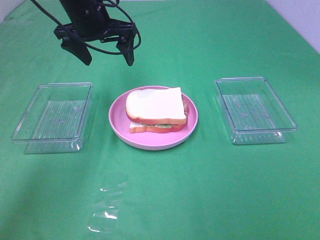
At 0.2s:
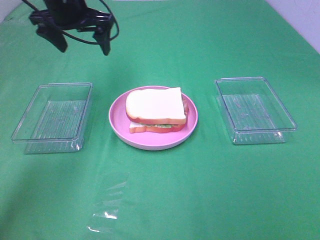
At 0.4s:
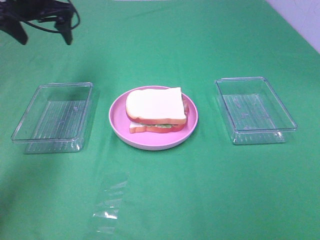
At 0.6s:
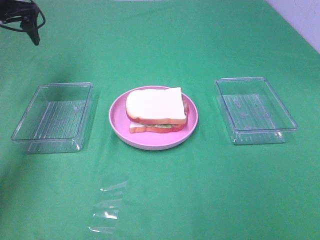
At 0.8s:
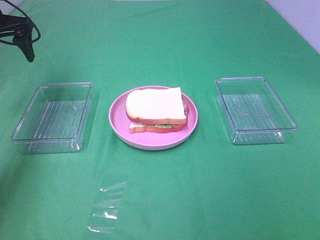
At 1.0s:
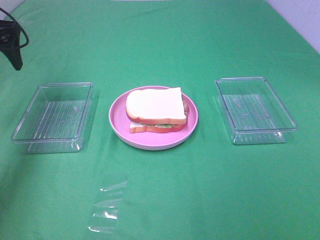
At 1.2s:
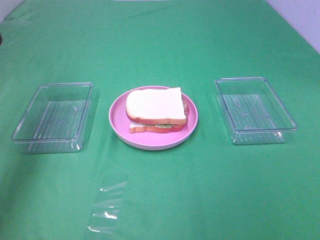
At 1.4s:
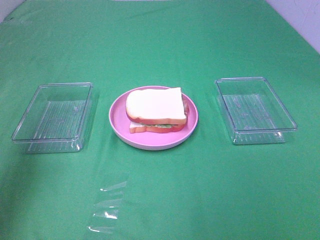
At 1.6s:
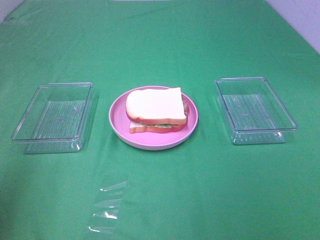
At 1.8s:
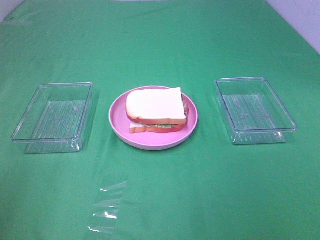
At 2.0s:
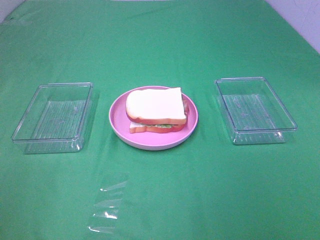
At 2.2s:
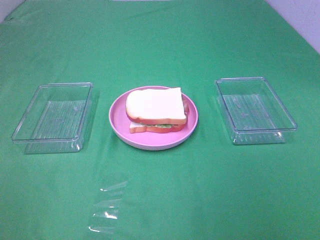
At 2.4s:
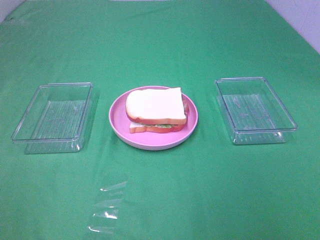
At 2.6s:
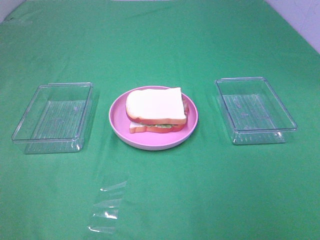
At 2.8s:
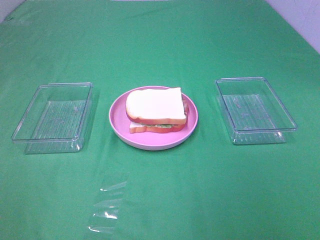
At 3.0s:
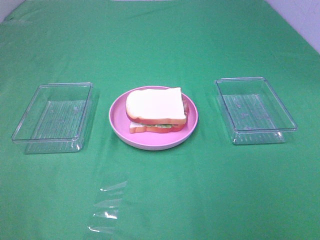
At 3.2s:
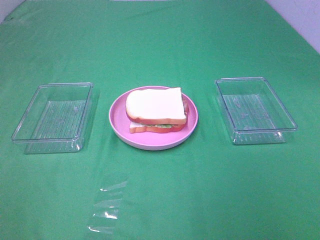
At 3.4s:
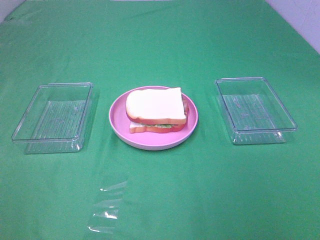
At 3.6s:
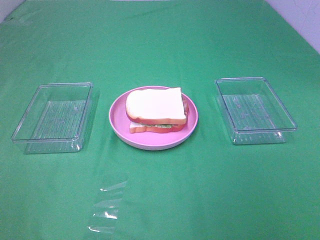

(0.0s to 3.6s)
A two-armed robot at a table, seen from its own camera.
Task of the whole recording: Make sandwiches.
0.0s - 1.8s: The left gripper goes about 40 cm backward and to the left.

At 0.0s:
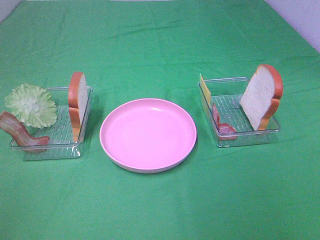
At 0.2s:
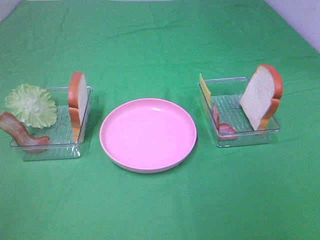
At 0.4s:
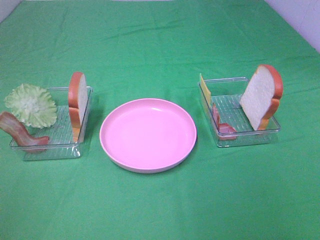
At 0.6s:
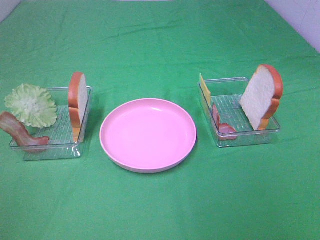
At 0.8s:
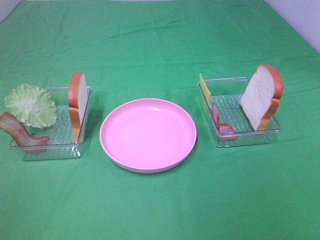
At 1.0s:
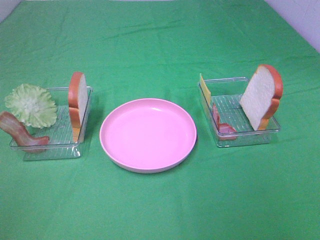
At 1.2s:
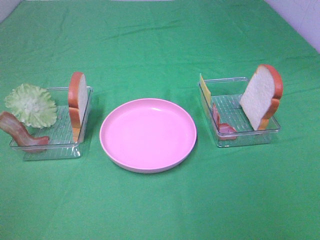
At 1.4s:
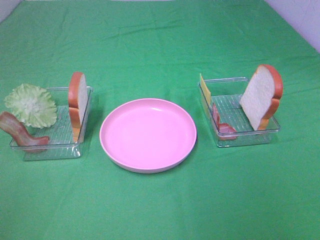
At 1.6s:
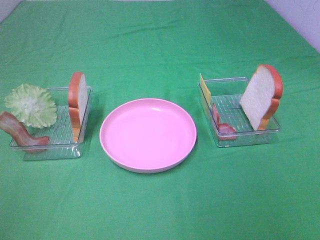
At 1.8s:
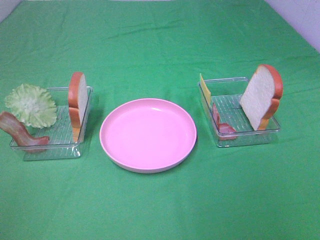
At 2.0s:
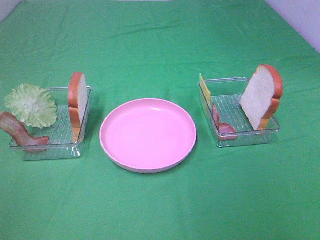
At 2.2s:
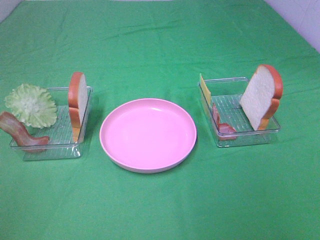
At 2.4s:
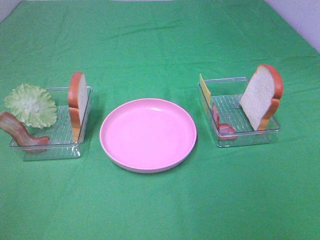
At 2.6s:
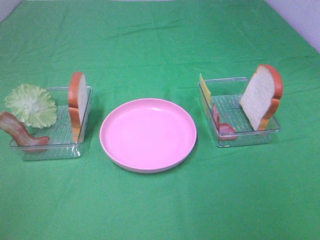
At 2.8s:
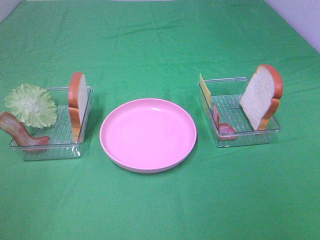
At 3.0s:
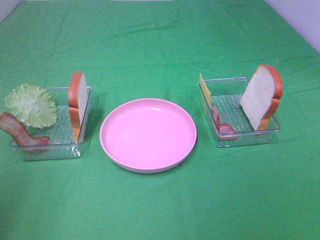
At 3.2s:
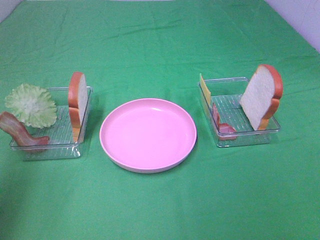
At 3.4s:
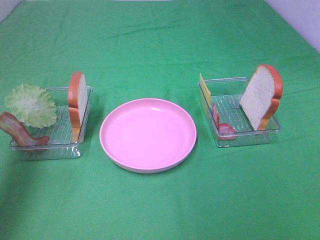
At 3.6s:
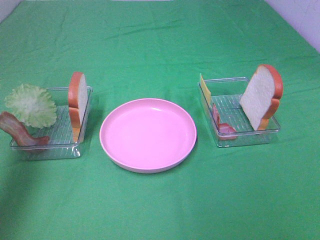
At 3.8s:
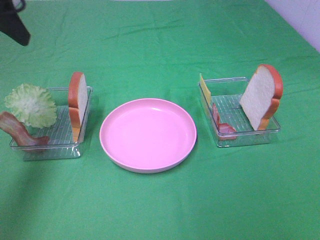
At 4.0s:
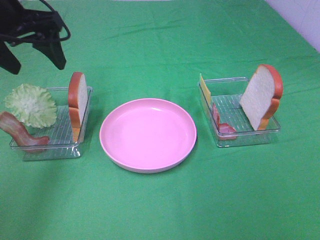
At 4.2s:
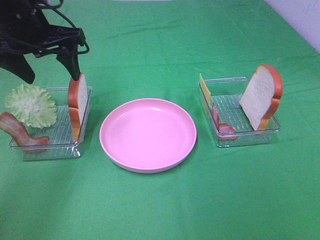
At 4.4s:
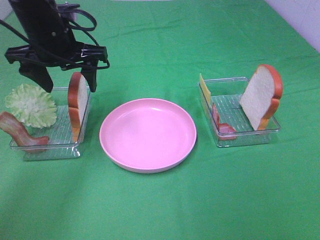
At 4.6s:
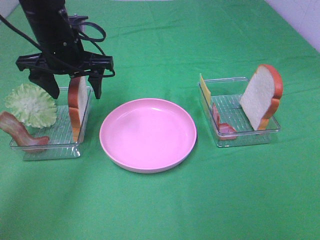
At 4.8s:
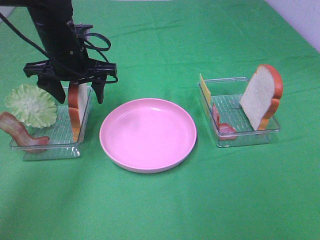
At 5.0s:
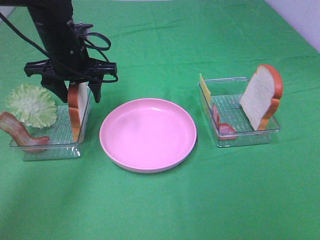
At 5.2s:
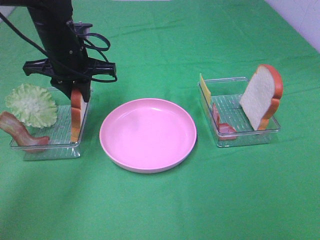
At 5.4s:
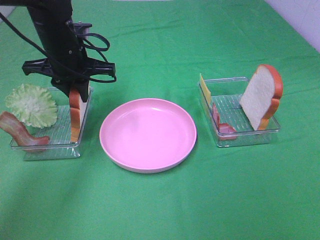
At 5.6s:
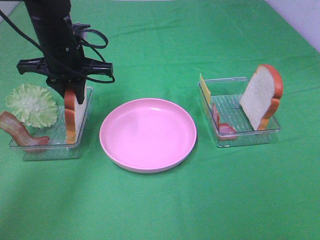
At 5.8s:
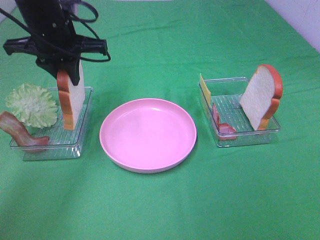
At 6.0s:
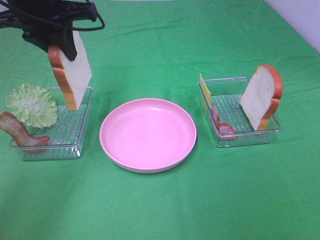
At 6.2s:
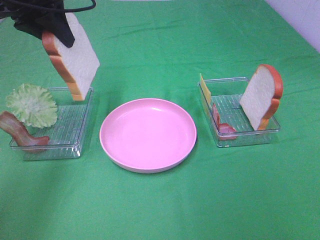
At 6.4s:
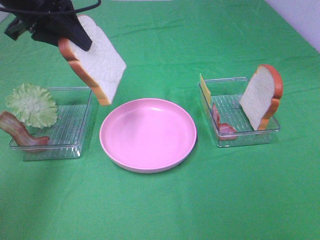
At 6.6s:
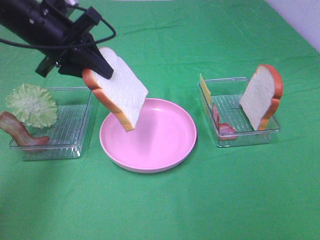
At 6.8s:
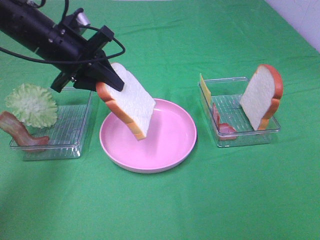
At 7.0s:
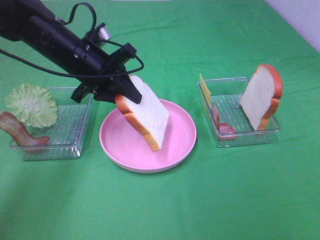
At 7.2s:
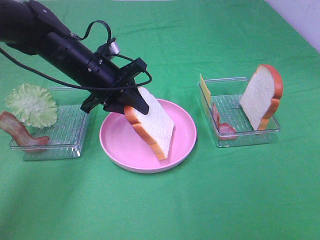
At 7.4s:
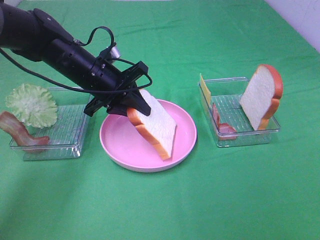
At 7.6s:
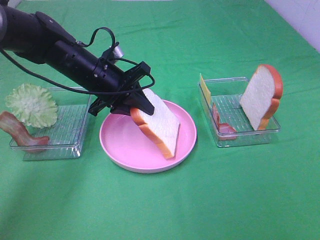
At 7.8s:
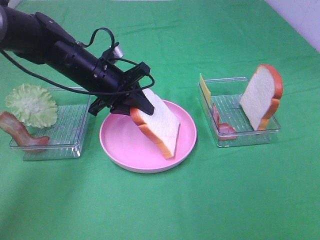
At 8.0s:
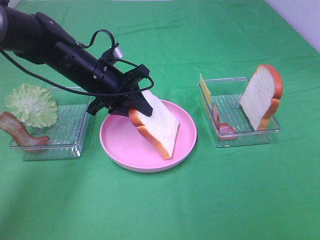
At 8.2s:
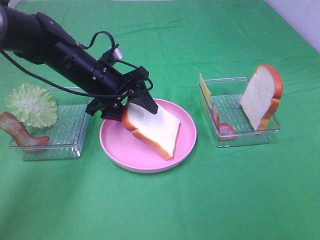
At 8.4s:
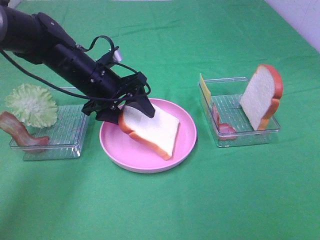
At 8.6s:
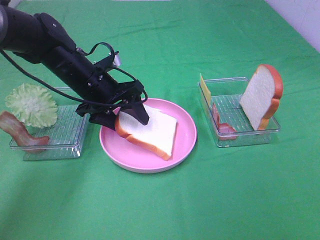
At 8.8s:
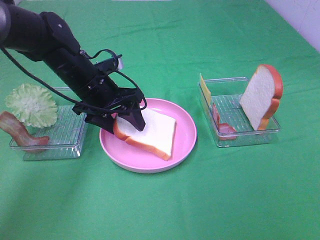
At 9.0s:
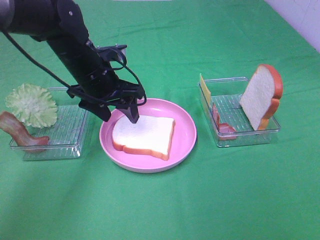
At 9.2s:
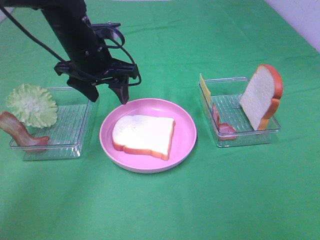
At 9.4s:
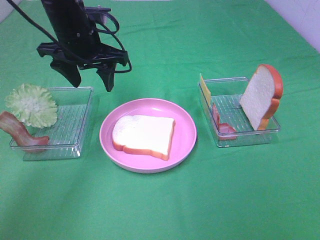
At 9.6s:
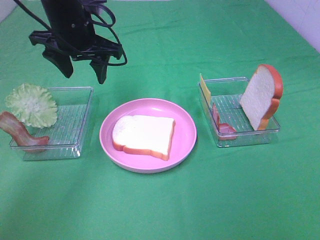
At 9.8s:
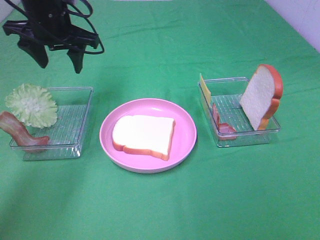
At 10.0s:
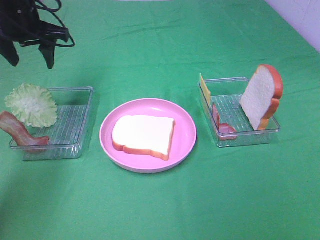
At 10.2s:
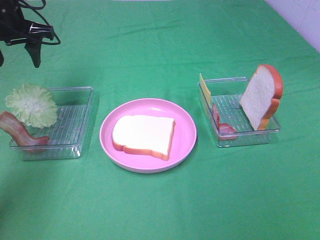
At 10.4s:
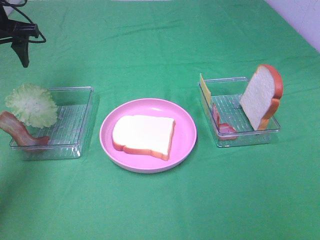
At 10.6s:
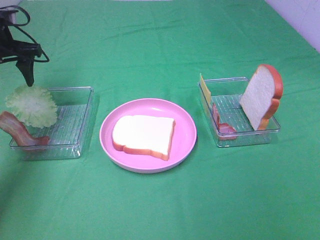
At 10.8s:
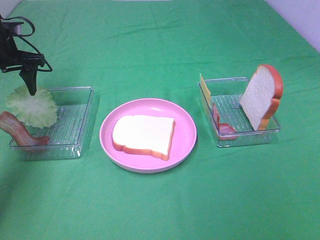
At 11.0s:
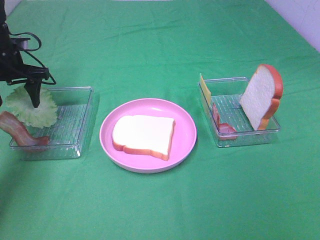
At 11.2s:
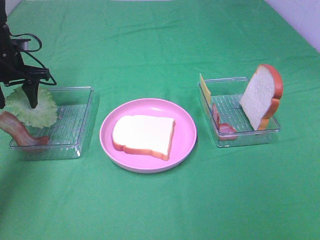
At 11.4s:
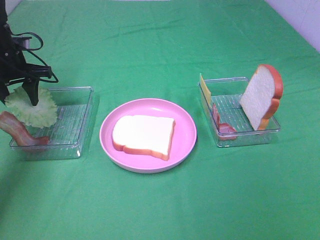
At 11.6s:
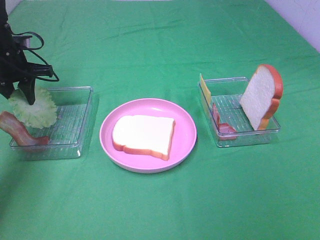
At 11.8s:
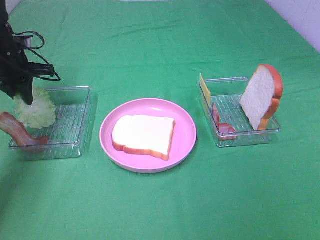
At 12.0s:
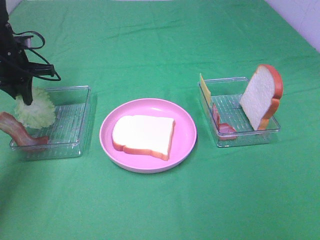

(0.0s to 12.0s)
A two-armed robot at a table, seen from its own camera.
Task of the whole recording: Make sandwiches.
Step, 0.0s - 5.4s: Left hand:grab the bread slice.
Step, 5.6s - 9.0s: Left hand:place the bread slice on the plate.
0.0s - 1.6s: Both grippers stay put.
3.0s - 4.4s: The left gripper shifts about 35 cm forward, to the right and downward.
4.4s - 6.0s: The left gripper goes some 10 cm upward, and closes.
6.0s - 7.6s: The left gripper goes some 15 cm downward.
7.6s - 9.0s: The left gripper opens its fingers.
9.0s - 10.4s: The left gripper travels to the left and upward by some 20 cm.
10.4s - 12.0s: The left gripper heads downward, covering roughly 10 cm, and closes up.

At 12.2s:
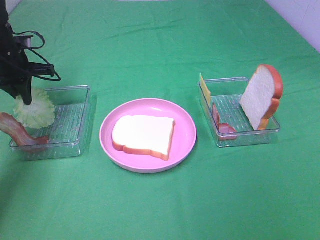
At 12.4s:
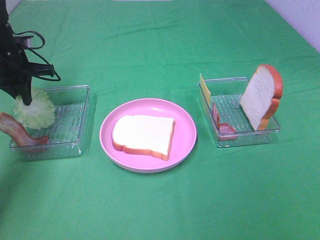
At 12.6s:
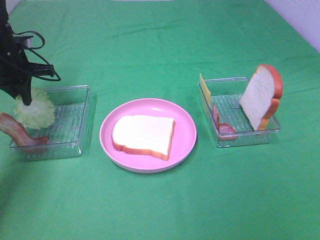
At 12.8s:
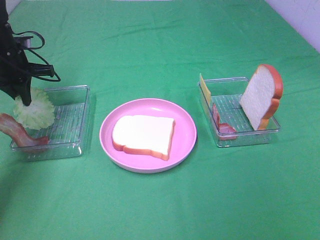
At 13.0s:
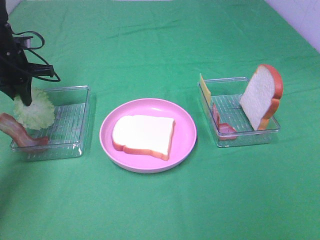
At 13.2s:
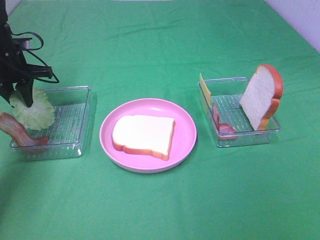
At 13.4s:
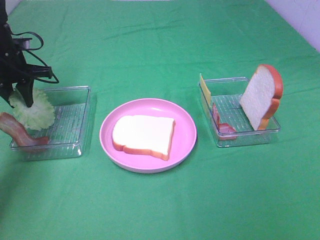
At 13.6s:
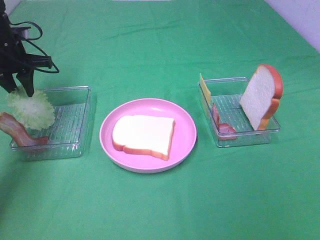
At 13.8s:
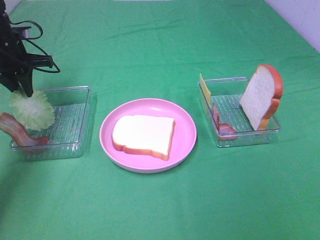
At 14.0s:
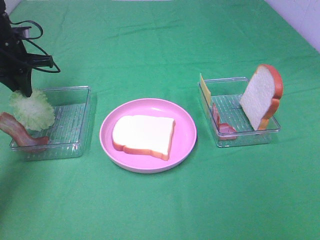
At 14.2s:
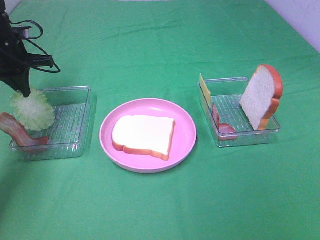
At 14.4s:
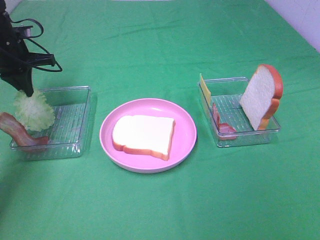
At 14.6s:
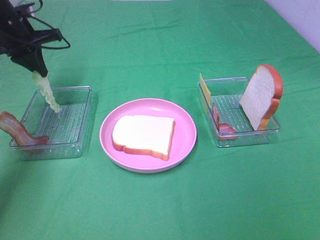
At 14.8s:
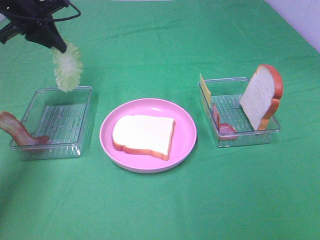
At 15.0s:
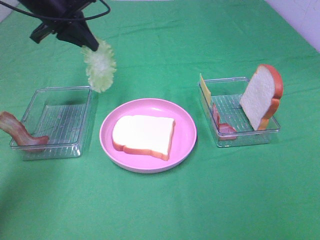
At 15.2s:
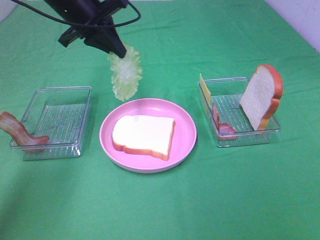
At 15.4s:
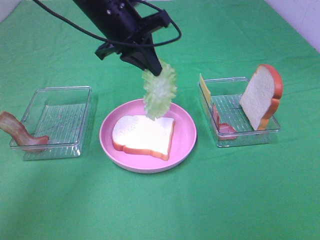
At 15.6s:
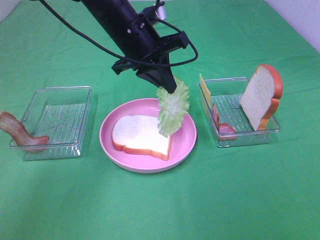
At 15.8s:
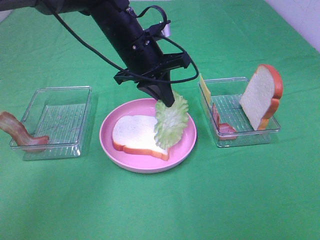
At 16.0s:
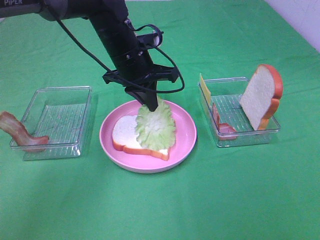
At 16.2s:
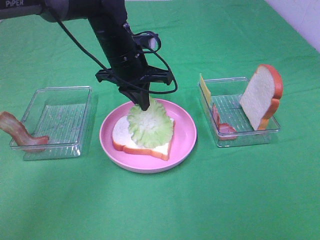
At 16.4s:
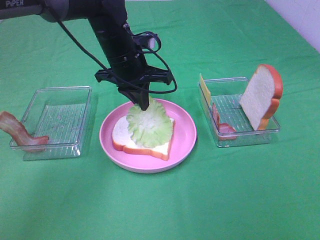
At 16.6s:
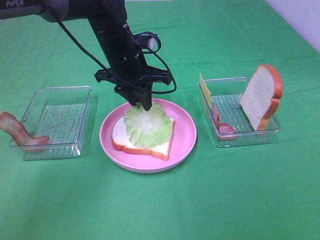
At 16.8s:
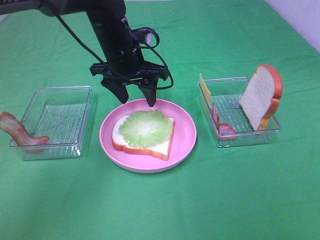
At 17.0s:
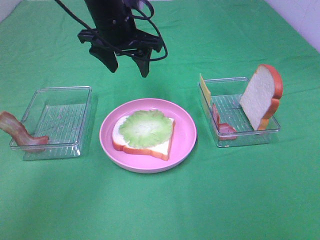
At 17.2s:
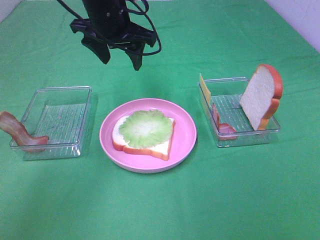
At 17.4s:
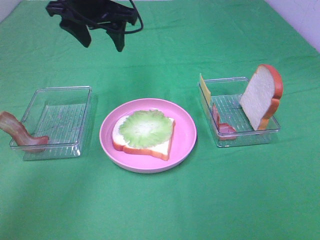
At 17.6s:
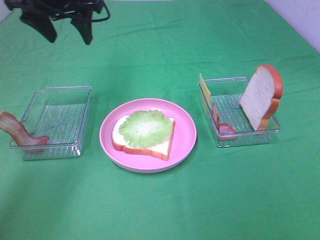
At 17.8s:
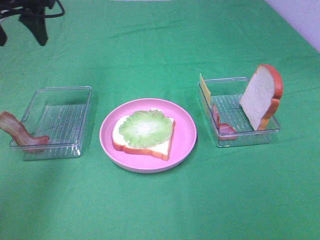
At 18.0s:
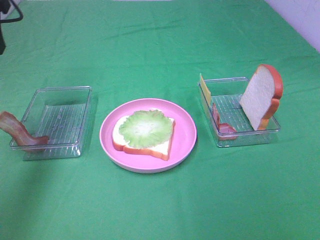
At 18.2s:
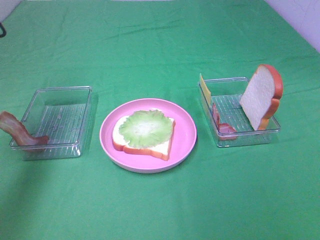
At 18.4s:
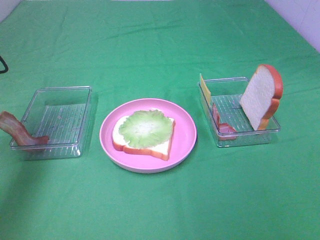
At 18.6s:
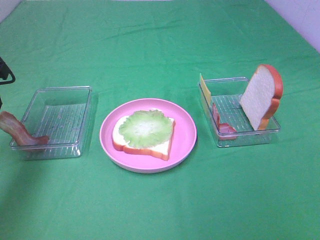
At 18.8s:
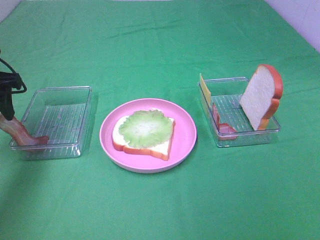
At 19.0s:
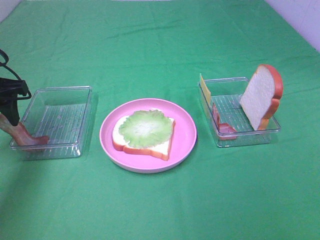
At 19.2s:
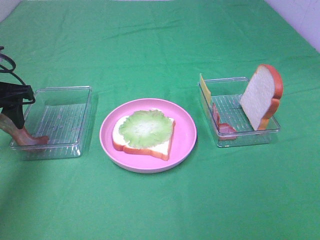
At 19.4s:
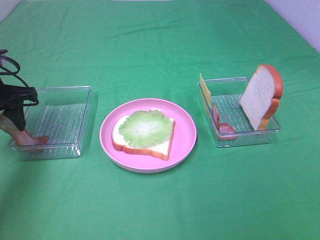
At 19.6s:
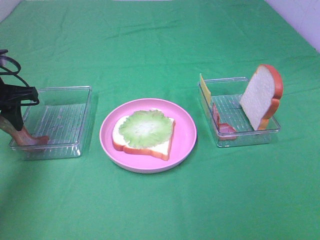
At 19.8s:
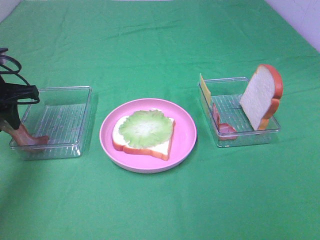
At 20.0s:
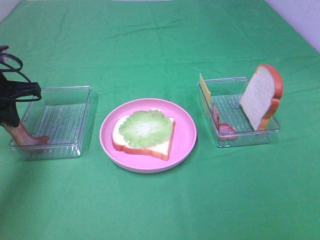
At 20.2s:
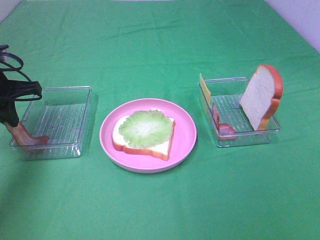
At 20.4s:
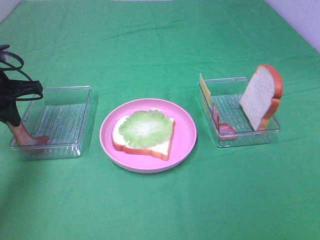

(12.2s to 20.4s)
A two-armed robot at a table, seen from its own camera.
Task of the whole recording: Make sandwiches.
Step, 12.6s - 16.8s: Left hand:place the lettuce slice on the bread slice.
Step, 17.0s - 20.2s: Left hand:grab the bacon.
12.2s - 13.8s: The grippers make only small movements.
13.8s - 15.4s: The left gripper moves to the right, some 25 cm.
15.4s - 17.2s: The left gripper travels downward and back again, approximately 5 cm each way, and opens.
17.2s - 18.8s: The left gripper shifts some 25 cm to the left and backward.
18.8s - 20.4s: The left gripper closes its fingers.
